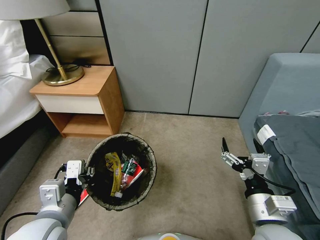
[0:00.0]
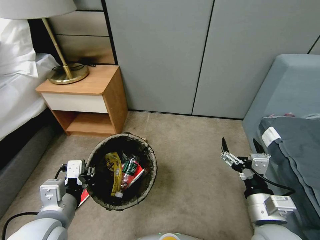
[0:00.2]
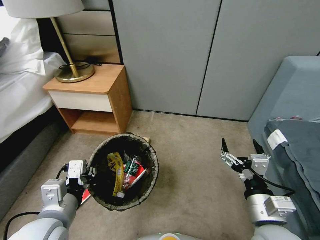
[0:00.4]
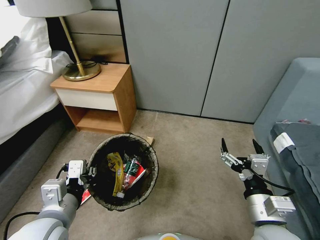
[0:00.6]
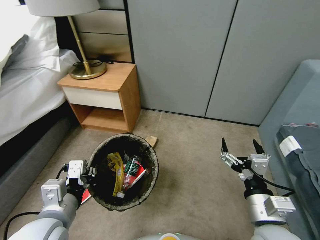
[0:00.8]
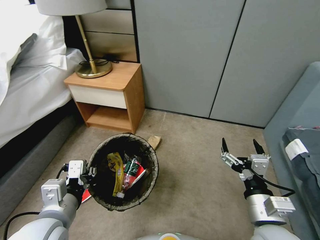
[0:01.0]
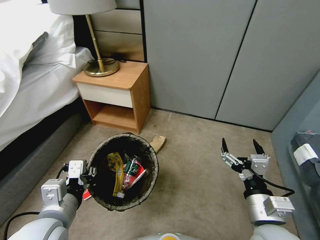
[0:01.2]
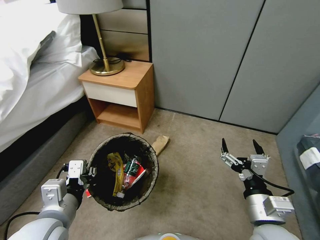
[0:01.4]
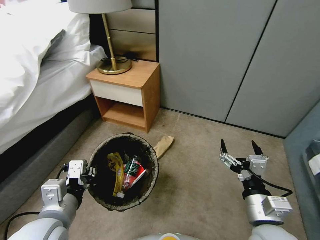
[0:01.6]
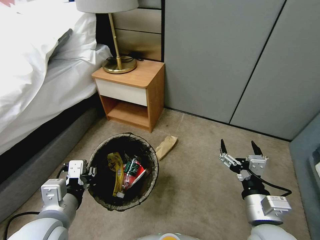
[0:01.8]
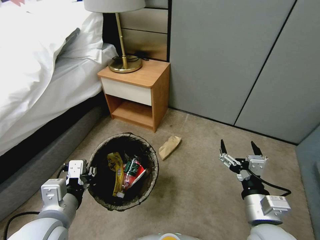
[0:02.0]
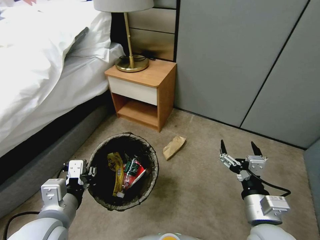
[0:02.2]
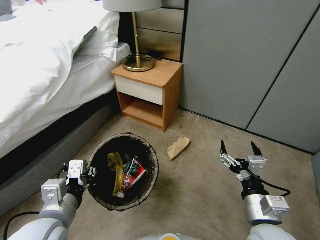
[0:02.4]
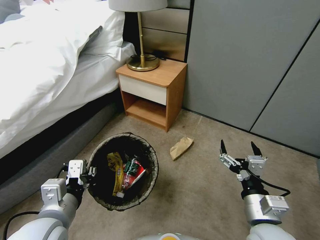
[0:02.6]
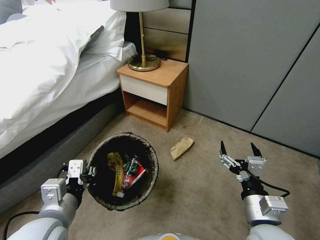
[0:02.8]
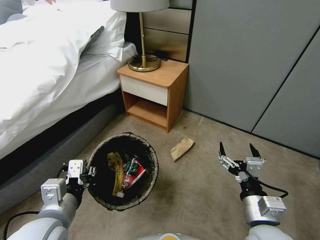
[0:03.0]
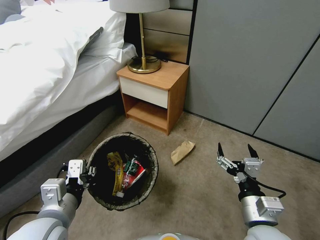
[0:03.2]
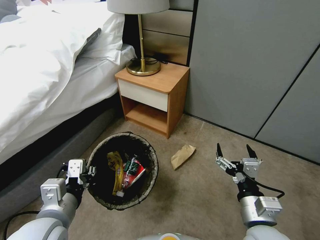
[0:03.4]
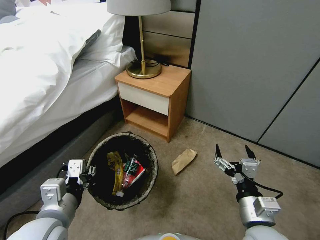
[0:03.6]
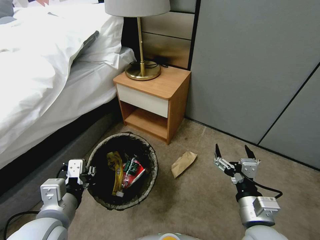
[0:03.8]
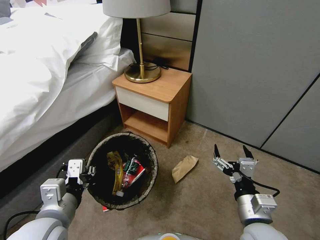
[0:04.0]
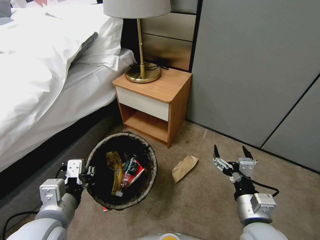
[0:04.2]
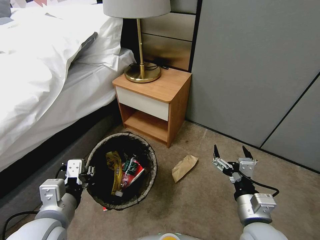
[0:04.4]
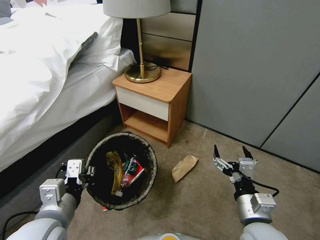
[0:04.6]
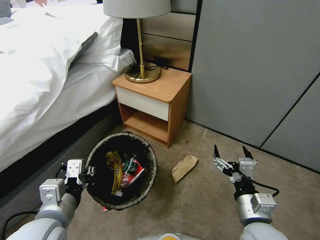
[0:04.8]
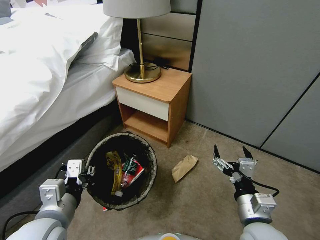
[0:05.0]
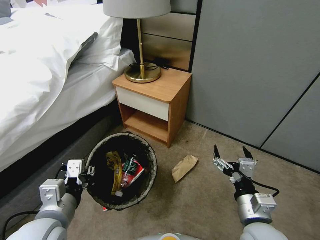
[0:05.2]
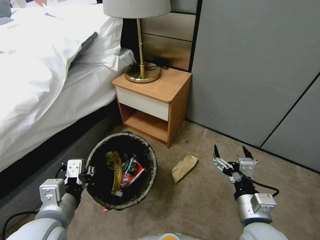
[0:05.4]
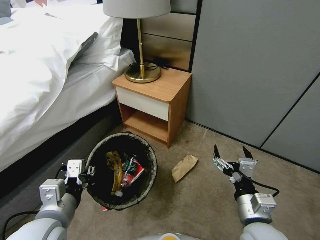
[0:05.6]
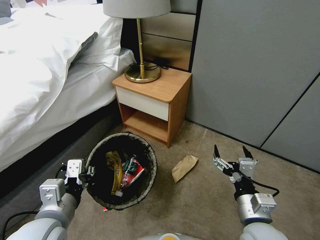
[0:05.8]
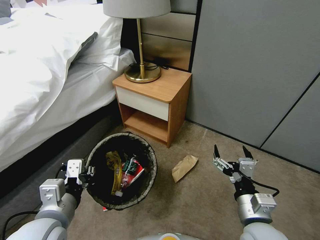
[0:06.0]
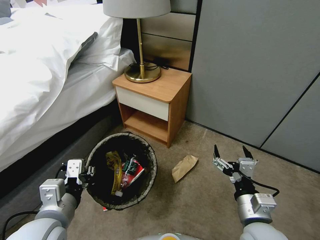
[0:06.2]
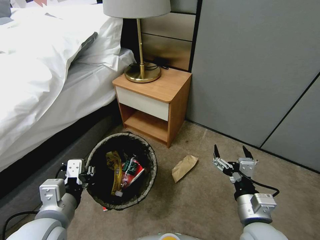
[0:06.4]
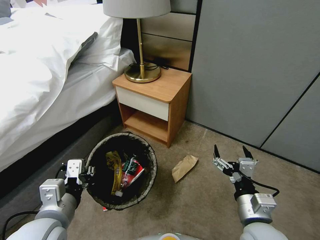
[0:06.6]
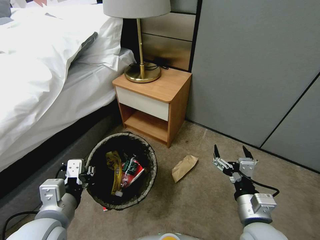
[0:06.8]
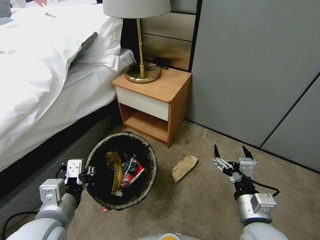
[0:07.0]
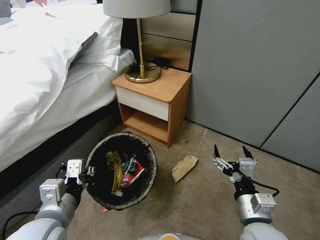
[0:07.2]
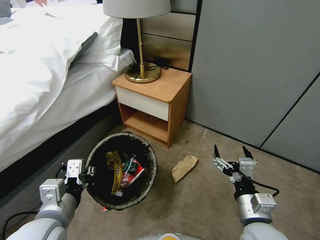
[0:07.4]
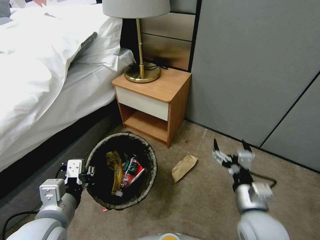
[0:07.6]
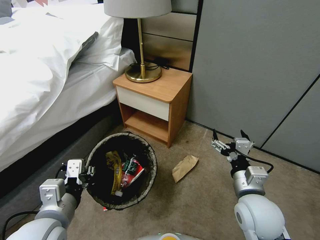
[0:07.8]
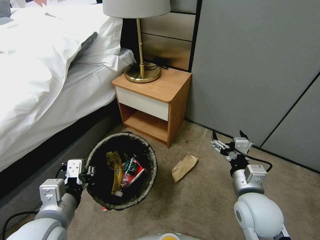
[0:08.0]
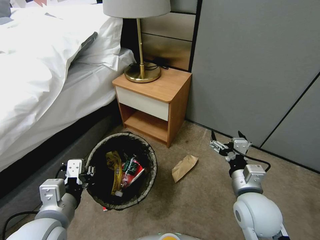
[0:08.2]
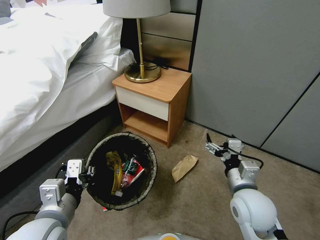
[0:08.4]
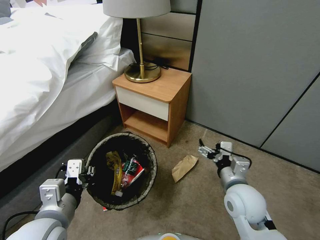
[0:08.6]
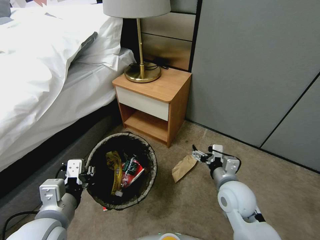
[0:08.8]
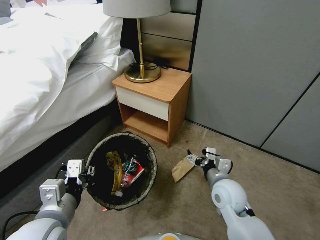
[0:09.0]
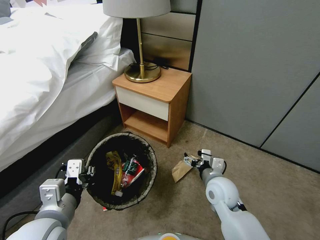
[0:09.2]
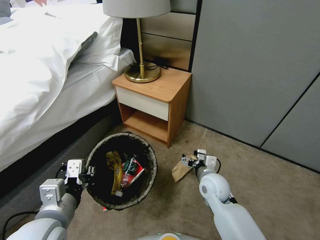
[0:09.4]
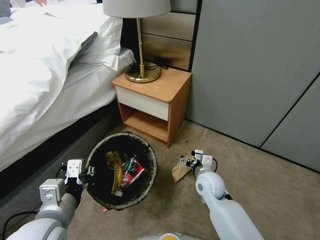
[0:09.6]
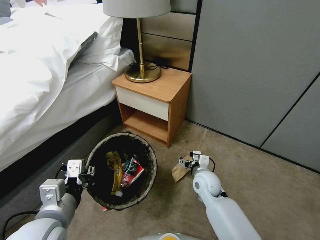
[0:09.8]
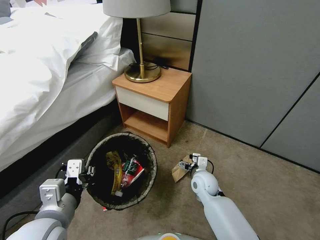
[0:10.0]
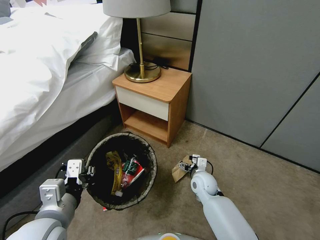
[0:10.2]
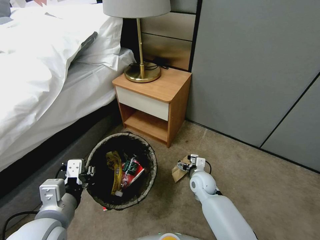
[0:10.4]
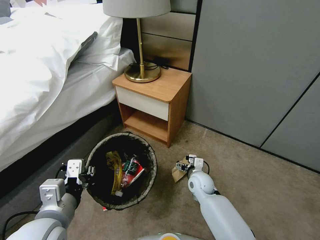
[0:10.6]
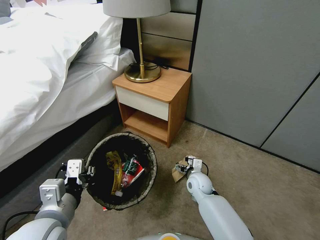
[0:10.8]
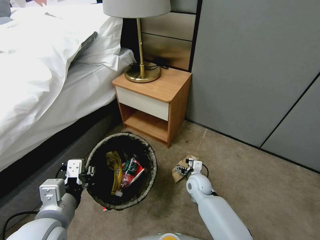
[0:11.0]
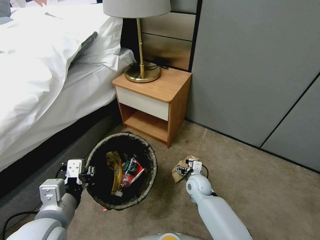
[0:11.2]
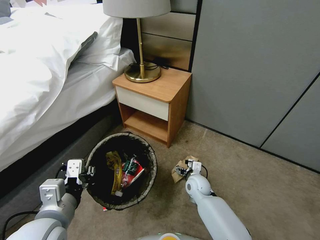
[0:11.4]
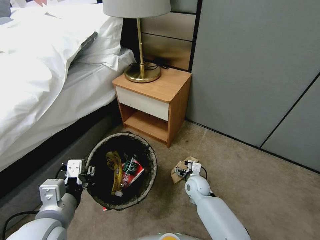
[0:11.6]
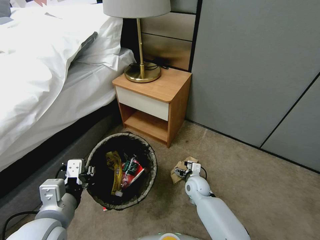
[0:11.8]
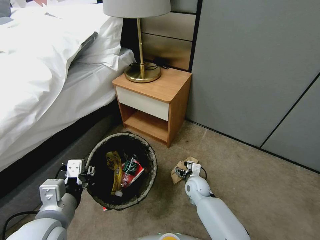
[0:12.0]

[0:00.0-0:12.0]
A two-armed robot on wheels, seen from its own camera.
Task of the whole recording: Pick up the trash bin, then pick up the garbage from the floor and place it into the trash bin.
0:04.4 to 0:06.0: Both grippers stay put.
0:06.0 to 0:07.6: The grippers stay close to where they were, moving slightly.
0:07.6 to 0:09.0: The right gripper goes about 10 cm forward.
0:09.0 to 0:10.4: The right gripper heads downward and forward, covering approximately 15 cm.
0:10.4 to 0:12.0: The grippers stay close to where they were, moving slightly.

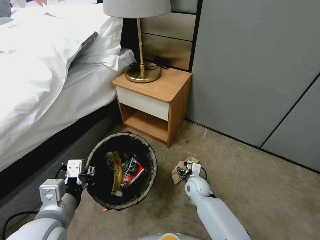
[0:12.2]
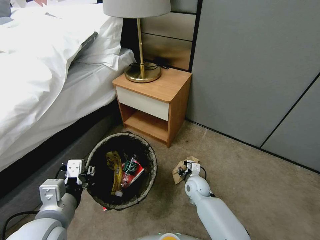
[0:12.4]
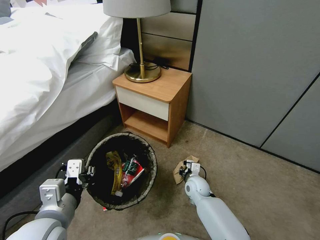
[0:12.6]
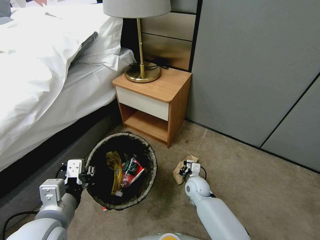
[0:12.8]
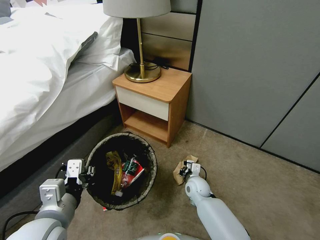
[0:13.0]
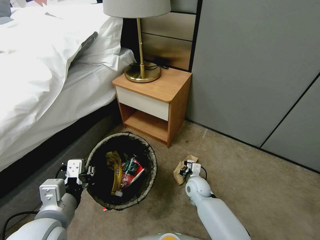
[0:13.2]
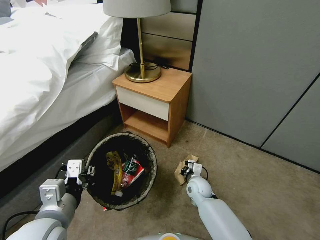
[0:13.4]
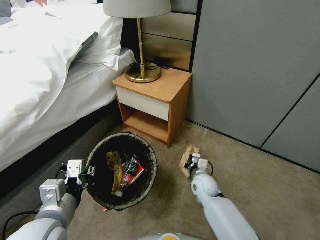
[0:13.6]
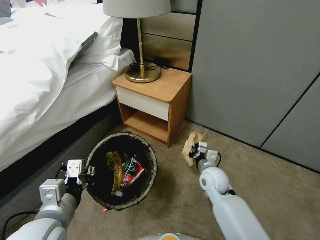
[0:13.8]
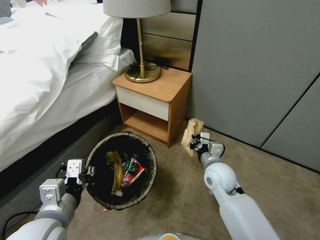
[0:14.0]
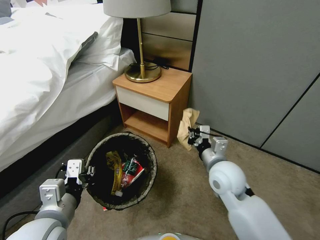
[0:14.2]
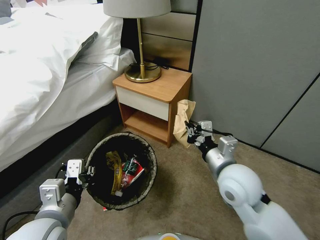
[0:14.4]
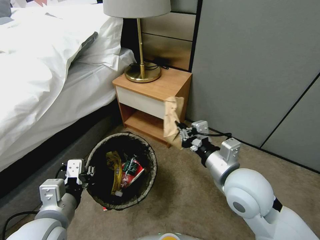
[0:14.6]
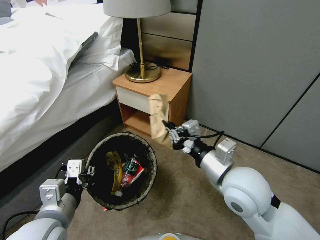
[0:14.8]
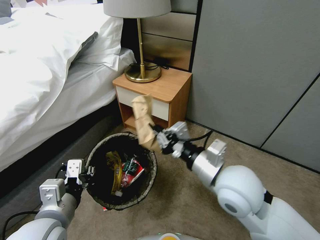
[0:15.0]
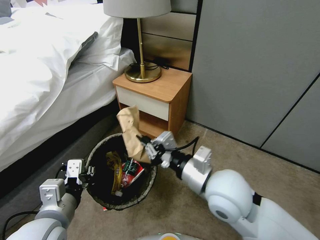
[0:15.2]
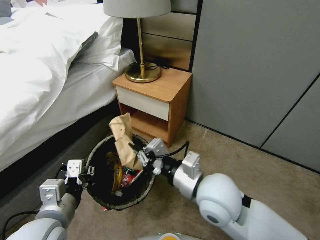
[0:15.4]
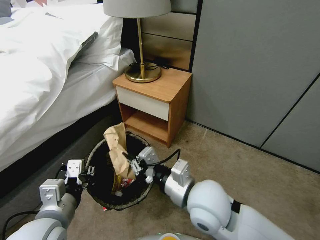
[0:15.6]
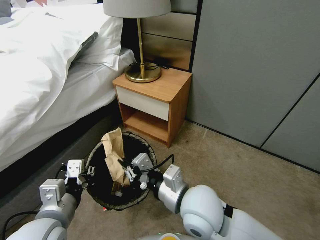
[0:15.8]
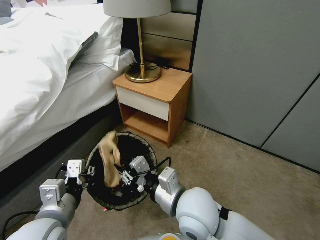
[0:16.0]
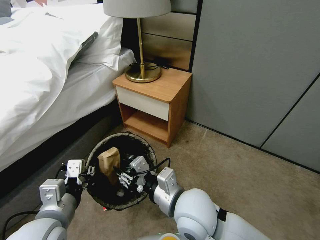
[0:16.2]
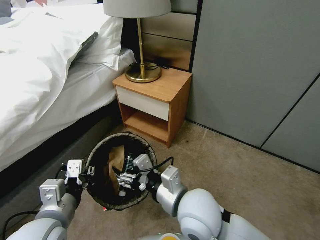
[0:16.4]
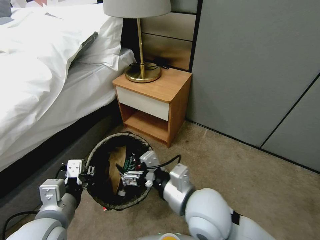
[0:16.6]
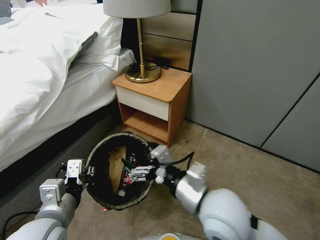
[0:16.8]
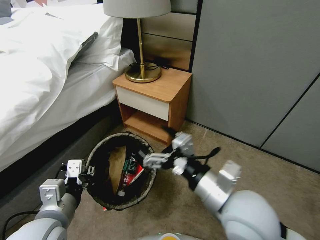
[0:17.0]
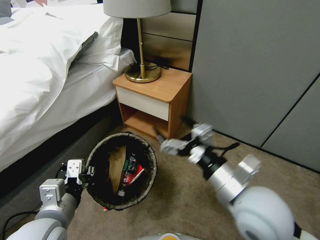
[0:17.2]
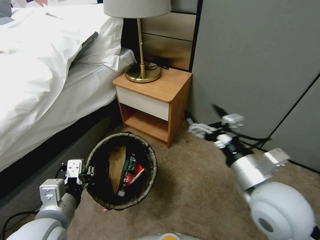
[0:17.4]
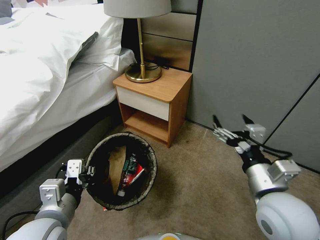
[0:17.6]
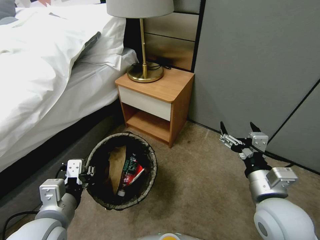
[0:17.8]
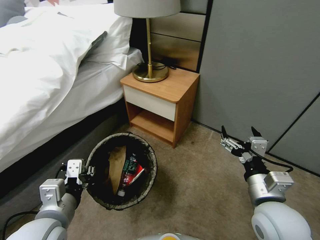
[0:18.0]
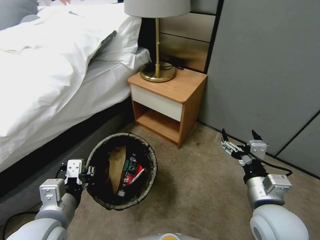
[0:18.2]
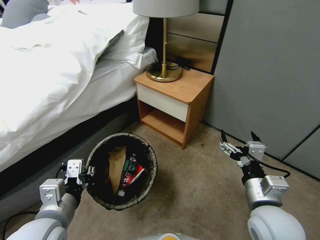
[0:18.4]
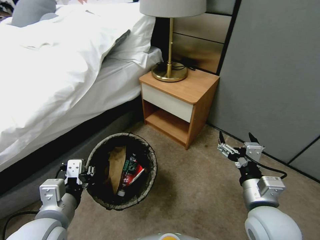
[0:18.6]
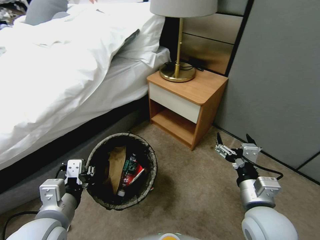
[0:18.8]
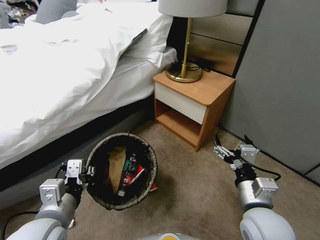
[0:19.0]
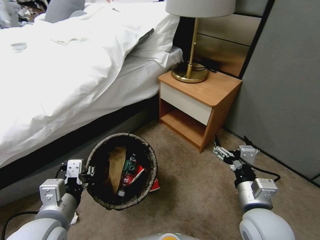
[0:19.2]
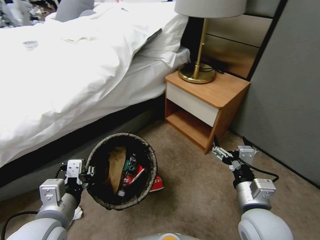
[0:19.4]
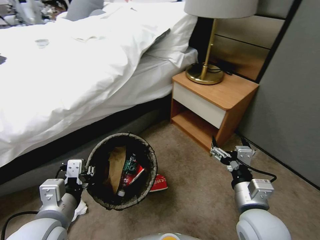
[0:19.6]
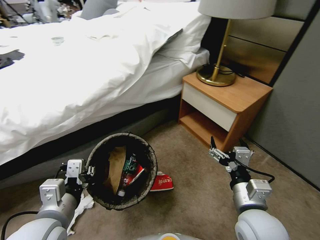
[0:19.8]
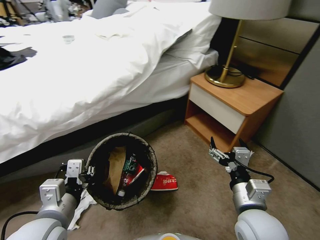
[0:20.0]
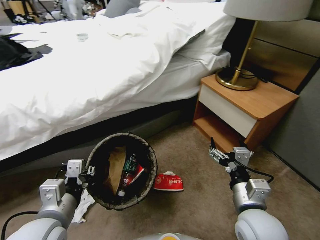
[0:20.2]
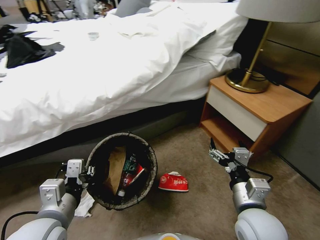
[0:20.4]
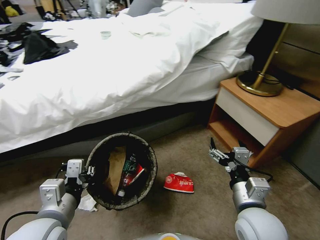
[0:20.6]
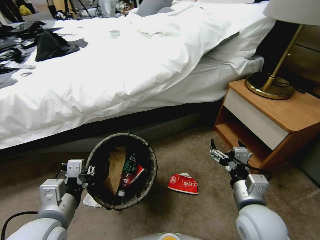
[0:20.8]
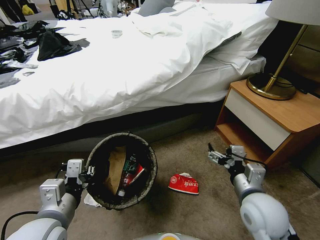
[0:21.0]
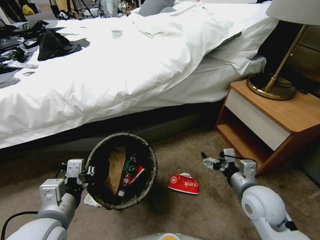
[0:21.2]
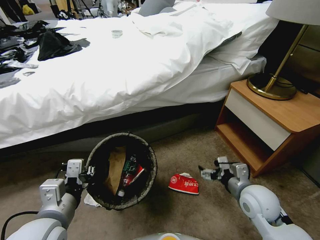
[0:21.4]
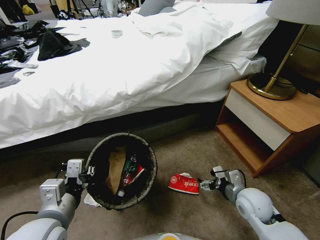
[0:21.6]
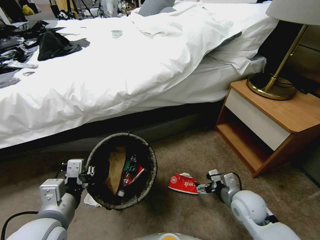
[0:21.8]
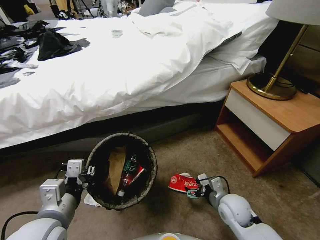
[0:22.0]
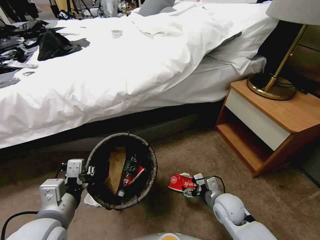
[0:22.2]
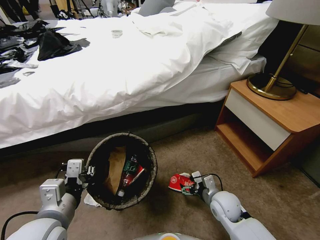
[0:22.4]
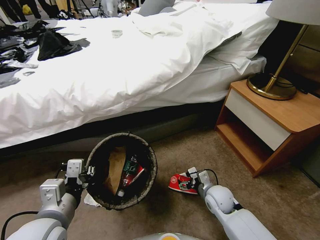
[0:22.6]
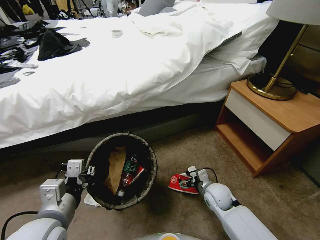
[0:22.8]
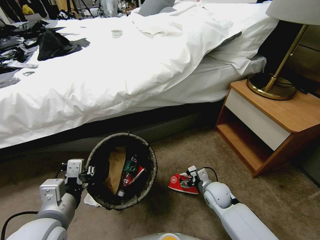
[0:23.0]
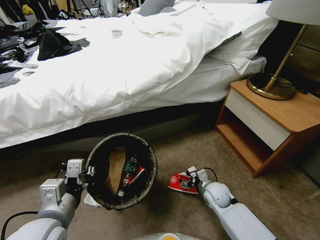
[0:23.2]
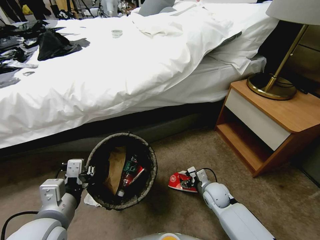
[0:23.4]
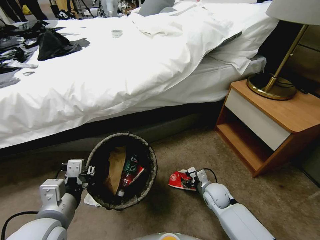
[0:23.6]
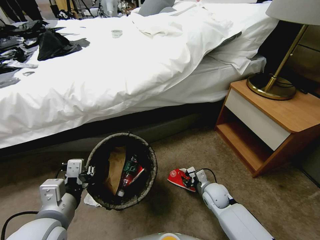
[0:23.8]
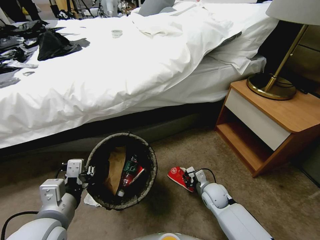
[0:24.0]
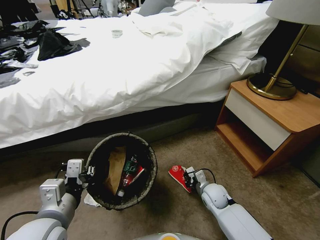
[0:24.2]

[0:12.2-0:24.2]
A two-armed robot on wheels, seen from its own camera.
Task of the whole recording: Pick up the trash bin, then pick up the garbage from the floor and place it into the trash bin.
0:12.2 to 0:13.8: The right gripper goes about 10 cm upward, and closes.
0:13.8 to 0:15.2: The right gripper goes approximately 20 cm upward and backward.
0:15.2 to 0:16.6: The right gripper shifts by about 5 cm, and opens up.
0:16.6 to 0:18.2: The right gripper is displaced to the right by approximately 15 cm.
0:19.8 to 0:21.2: The right gripper shifts roughly 5 cm forward.
0:21.2 to 0:22.6: The right gripper goes about 15 cm downward.
0:22.6 to 0:24.2: The right gripper moves roughly 5 cm, and closes up.
